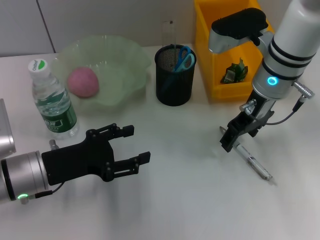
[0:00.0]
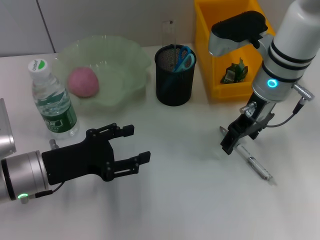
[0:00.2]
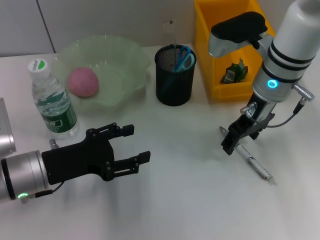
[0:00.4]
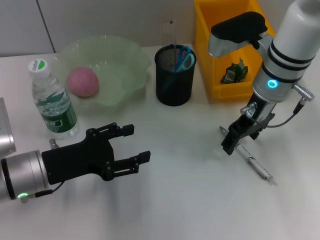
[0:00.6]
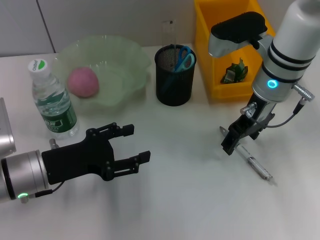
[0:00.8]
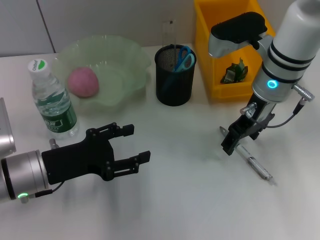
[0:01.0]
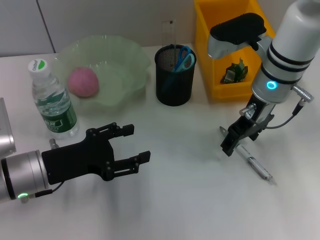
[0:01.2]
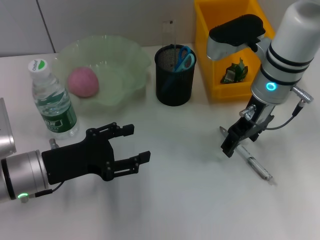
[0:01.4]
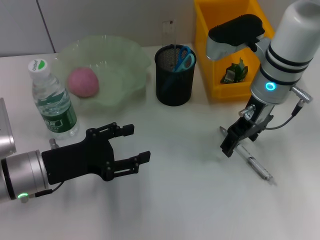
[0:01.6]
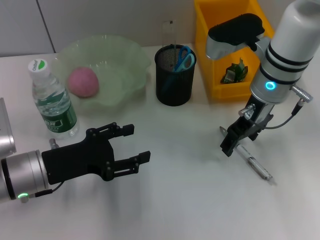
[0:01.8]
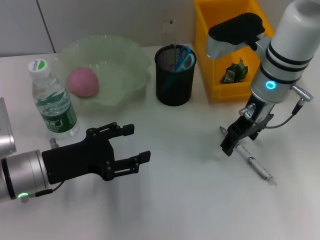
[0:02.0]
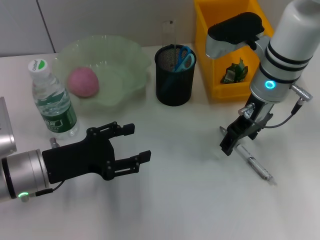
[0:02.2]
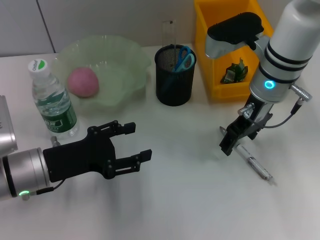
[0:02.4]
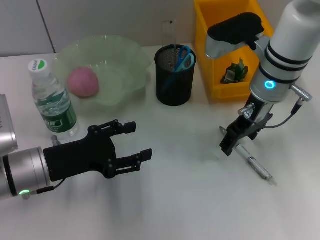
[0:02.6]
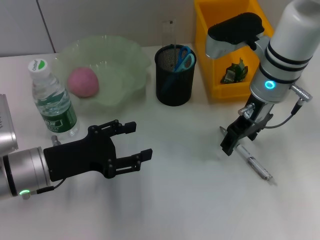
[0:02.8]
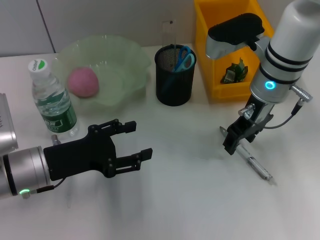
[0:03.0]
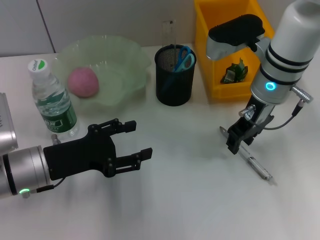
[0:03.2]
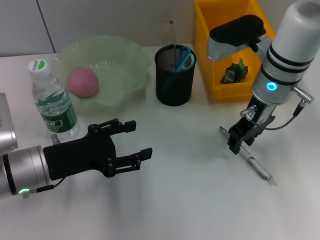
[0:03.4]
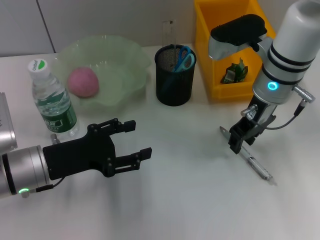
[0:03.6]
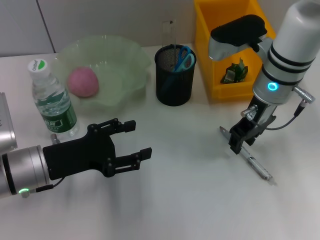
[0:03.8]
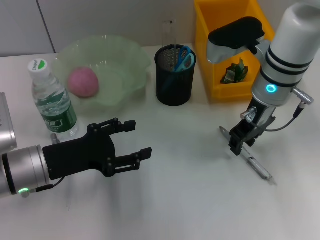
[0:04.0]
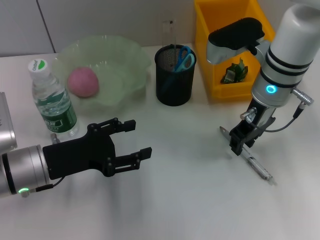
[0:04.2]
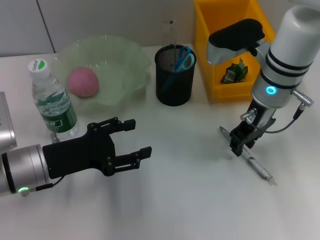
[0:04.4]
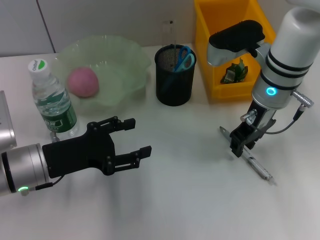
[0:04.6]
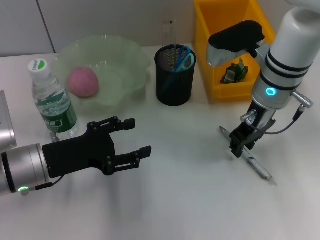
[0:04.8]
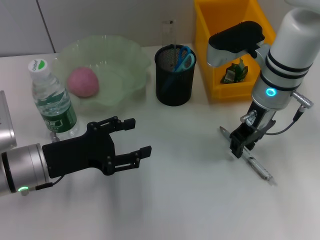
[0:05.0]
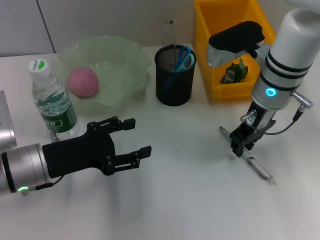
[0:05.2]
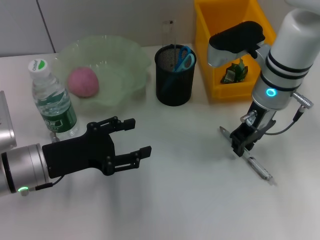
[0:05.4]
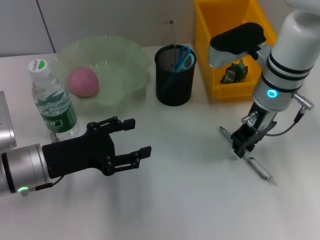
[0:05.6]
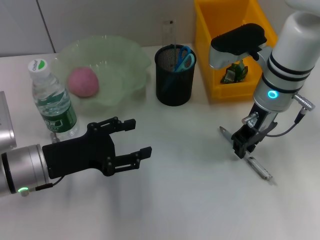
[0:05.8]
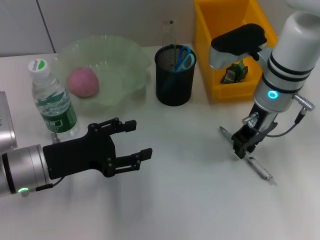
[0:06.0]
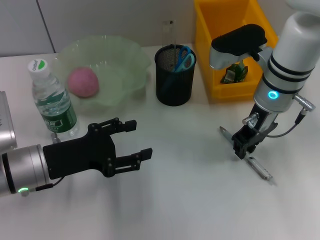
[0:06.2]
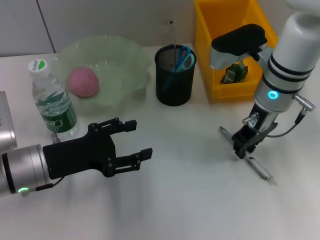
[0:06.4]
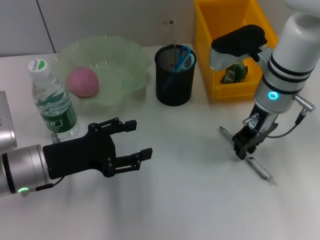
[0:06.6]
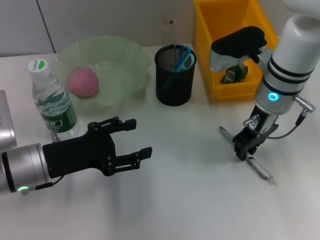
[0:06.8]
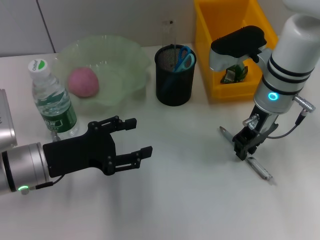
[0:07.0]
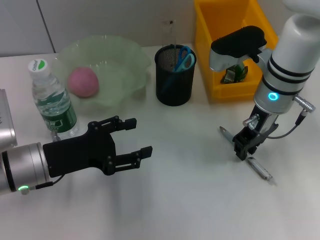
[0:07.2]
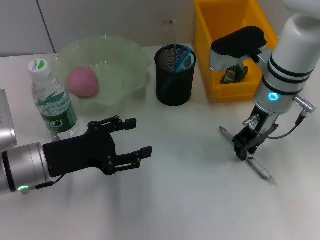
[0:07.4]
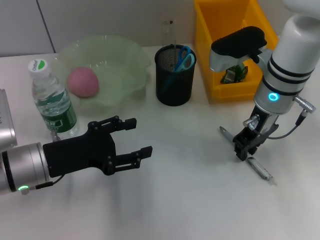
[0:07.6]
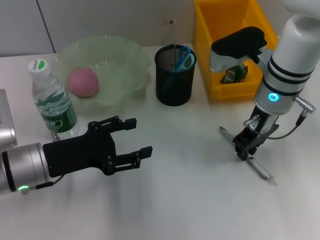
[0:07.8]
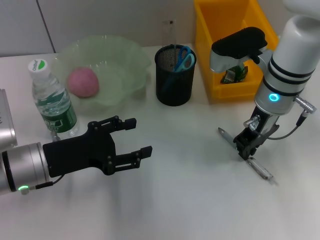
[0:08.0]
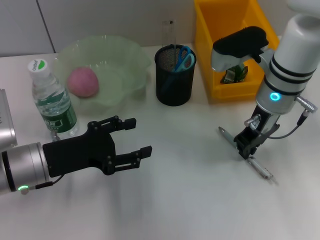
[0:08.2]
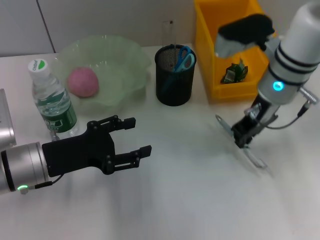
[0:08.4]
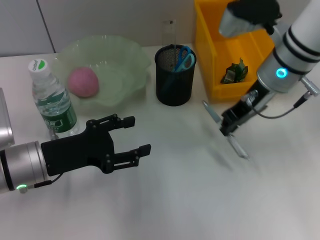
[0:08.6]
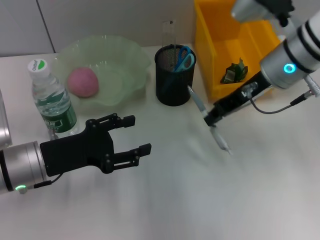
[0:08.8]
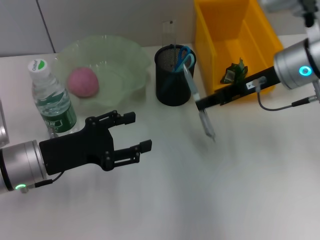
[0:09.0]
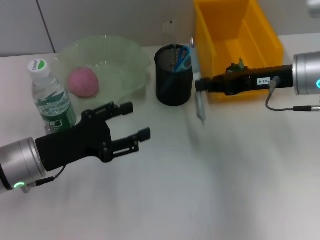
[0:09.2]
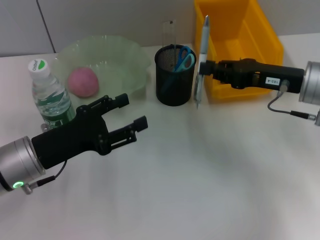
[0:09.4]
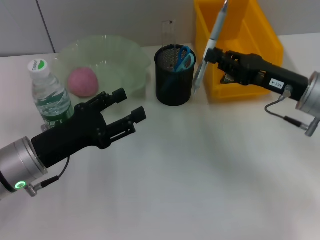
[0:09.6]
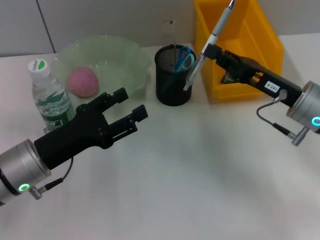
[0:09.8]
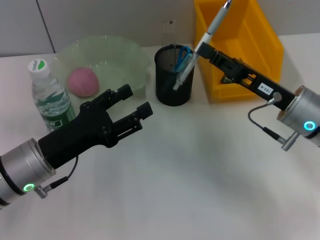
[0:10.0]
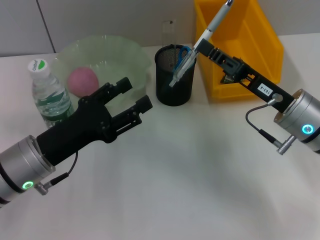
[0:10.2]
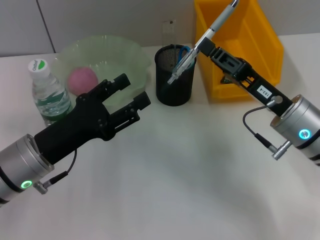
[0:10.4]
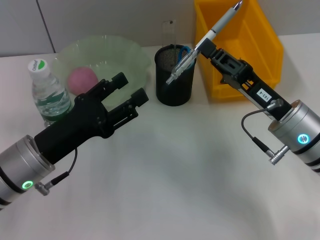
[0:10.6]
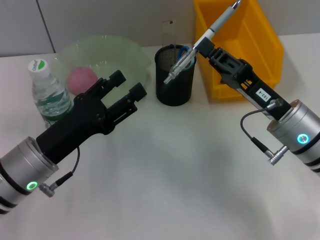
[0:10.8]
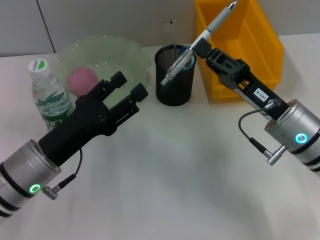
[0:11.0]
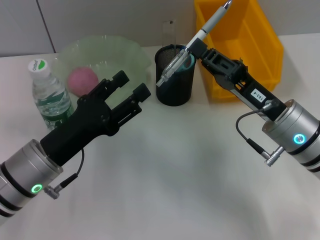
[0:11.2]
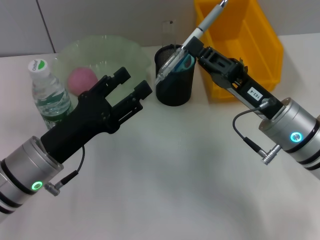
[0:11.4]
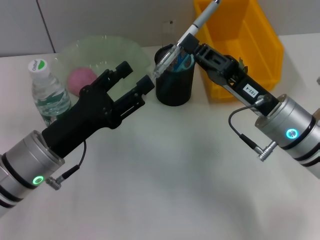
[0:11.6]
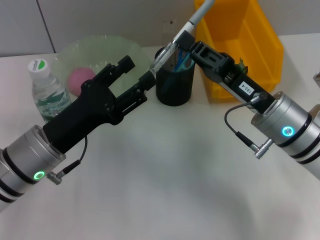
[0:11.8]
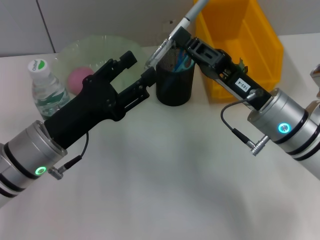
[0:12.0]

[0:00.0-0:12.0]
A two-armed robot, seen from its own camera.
Step, 0:00.0 to 0:07.8: Grab the gray spring-action pen with the right hand.
0:00.0 to 0:03.0: The two grippers keep their place.
0:03.0 to 0:04.4: The right gripper closes up.
0:04.4 to 0:07.6: The two grippers keep their place.
0:07.6 to 0:09.0: The right gripper changes place by roughly 5 cm.
0:09.0 to 0:10.4: The right gripper shifts some 10 cm downward and backward.
0:10.4 to 0:12.0: The grippers move only a little.

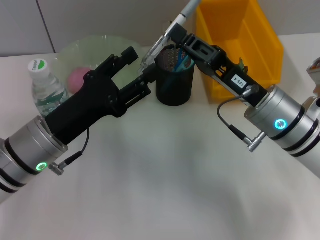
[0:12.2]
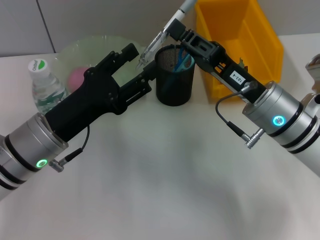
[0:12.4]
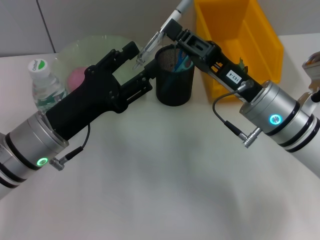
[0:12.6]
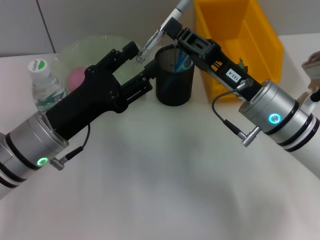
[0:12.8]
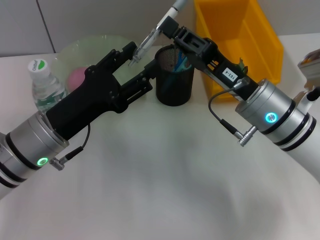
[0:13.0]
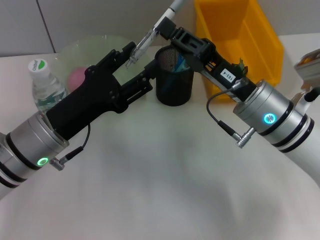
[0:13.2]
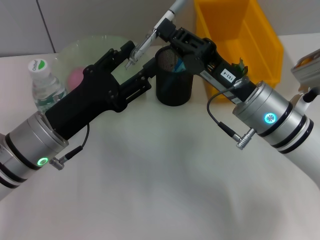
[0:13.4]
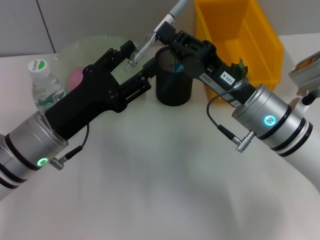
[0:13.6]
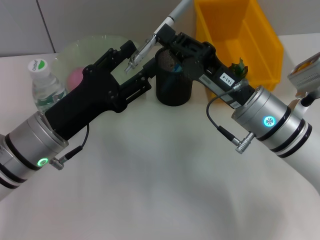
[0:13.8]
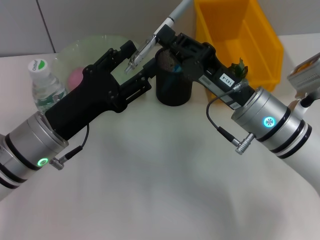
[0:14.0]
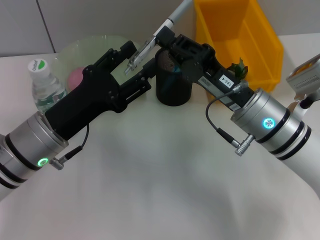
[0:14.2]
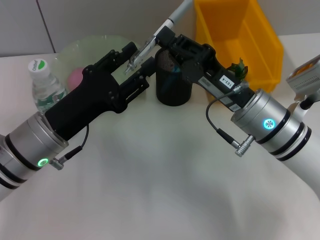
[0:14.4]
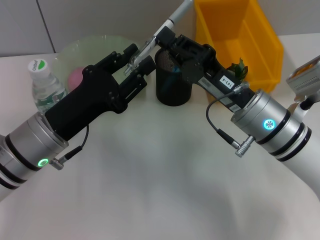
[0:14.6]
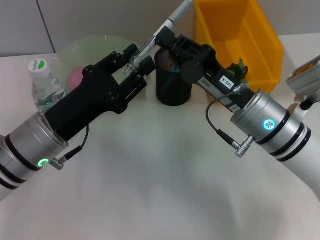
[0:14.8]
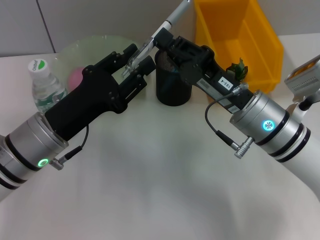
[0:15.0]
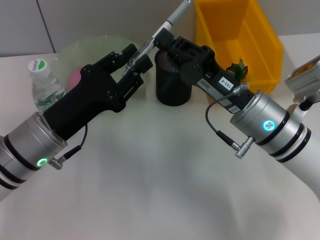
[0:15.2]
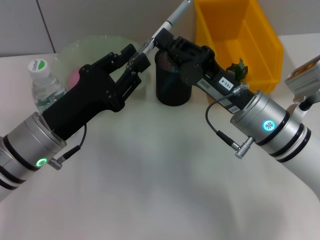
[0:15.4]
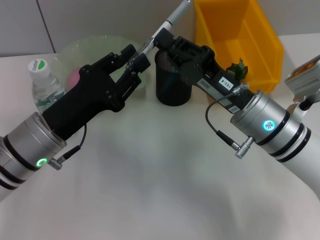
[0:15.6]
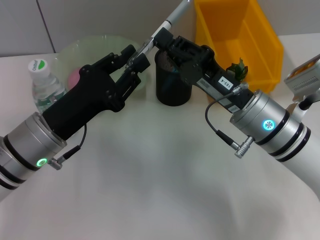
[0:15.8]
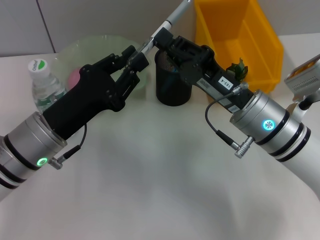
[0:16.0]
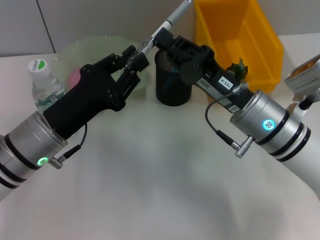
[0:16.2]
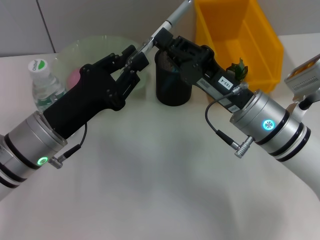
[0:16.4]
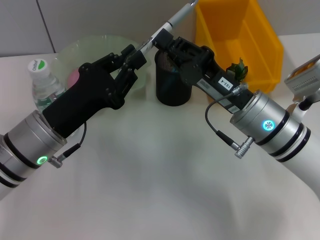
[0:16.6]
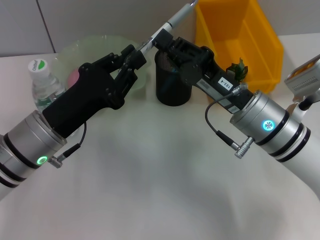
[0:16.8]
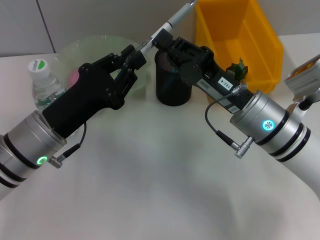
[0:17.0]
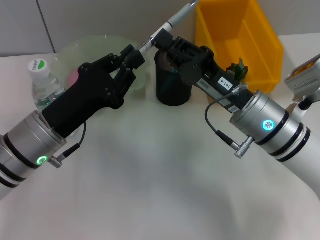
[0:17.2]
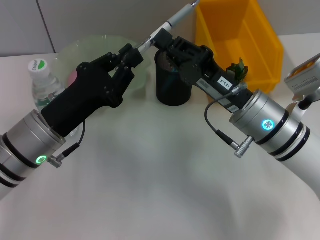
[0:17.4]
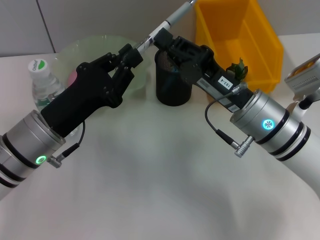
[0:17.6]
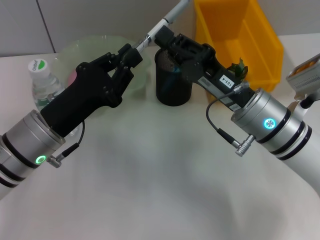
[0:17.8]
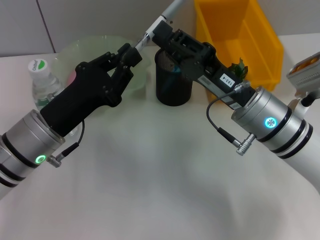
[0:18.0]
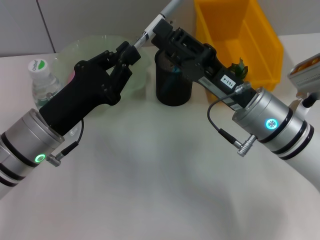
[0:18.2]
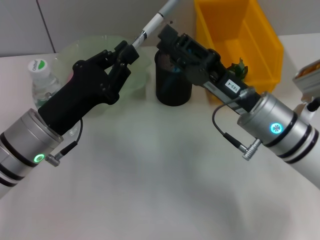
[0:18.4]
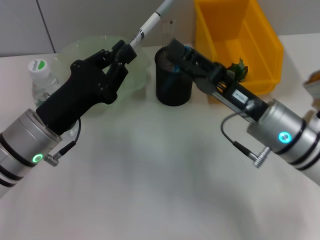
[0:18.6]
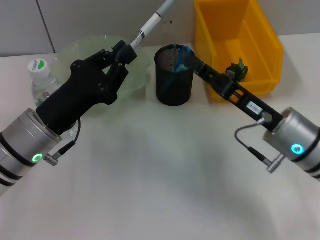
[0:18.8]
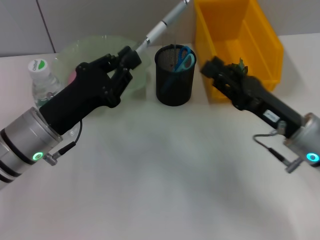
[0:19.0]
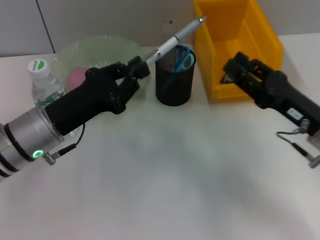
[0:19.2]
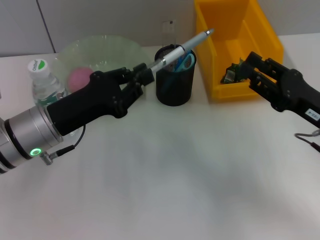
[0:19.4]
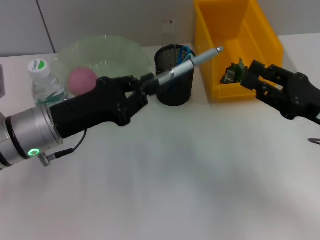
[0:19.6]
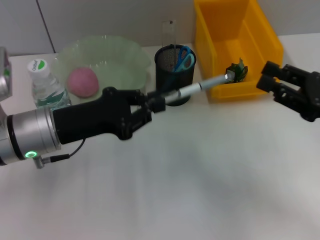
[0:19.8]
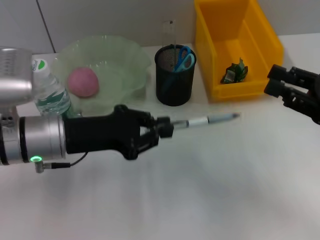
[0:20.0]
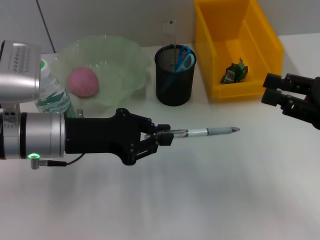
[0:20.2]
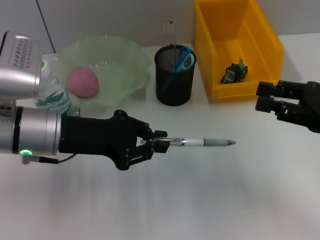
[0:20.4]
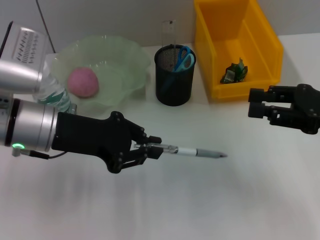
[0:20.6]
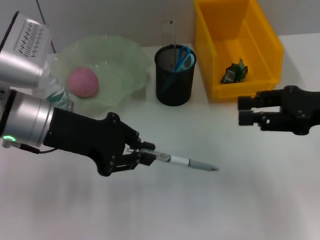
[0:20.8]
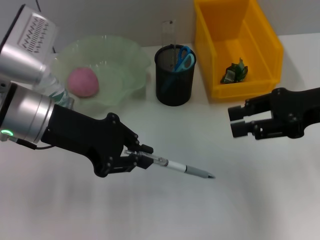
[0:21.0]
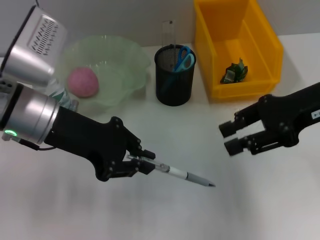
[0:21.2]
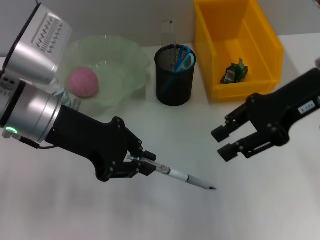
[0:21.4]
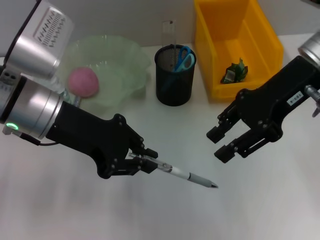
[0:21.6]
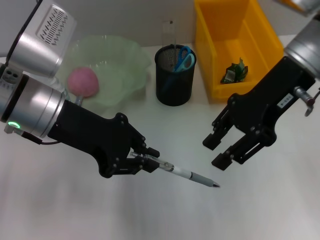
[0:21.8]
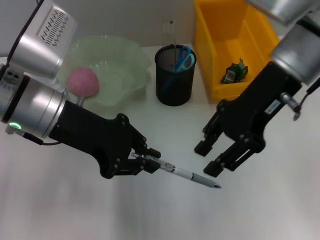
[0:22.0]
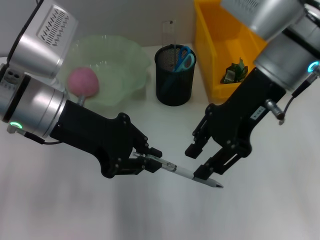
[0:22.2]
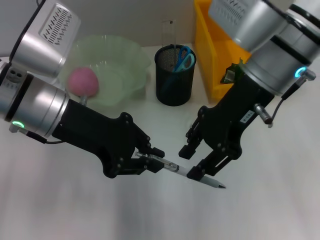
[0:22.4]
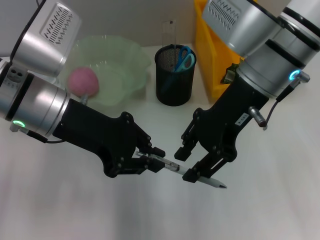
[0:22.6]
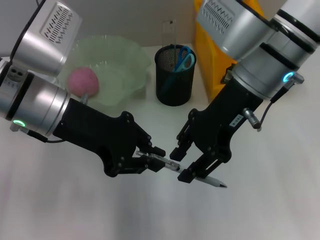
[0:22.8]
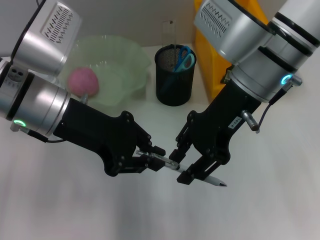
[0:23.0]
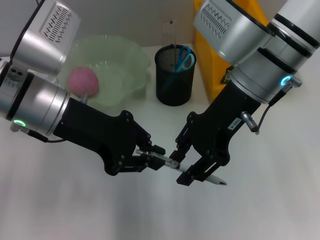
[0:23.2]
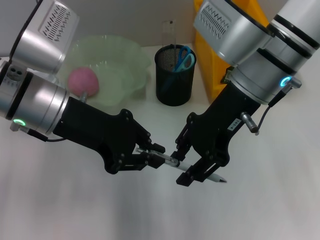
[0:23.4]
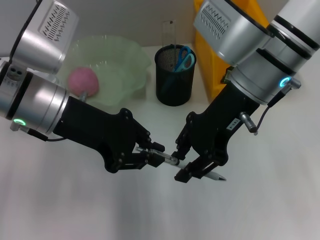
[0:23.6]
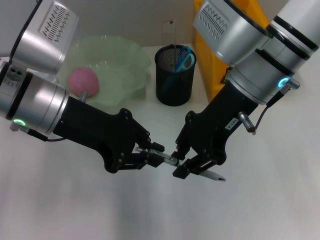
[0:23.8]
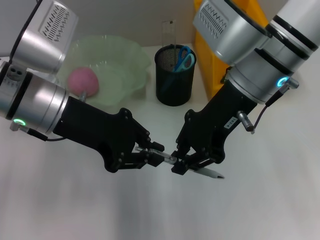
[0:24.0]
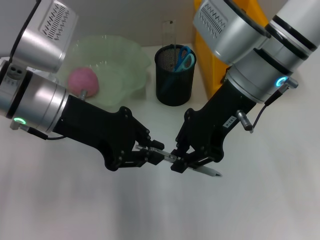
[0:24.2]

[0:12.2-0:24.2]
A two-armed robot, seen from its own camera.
Step, 0:12.2 to 0:18.2: Pass the gray spring-action pen from the right hand to the left hand.
0:12.2 to 0:13.8: The grippers make only small movements.
0:13.8 to 0:15.2: The left gripper closes up.
0:15.2 to 0:16.6: The left gripper closes.
0:16.6 to 0:18.2: Neither gripper changes place.
0:18.2 to 0:19.8: The right gripper heads to the right, covering roughly 15 cm.
0:19.8 to 0:21.2: The left gripper heads upward, covering roughly 5 cm, while the right gripper is displaced upward and forward by approximately 10 cm.
0:21.2 to 0:22.6: The right gripper travels to the left by approximately 15 cm.
0:22.6 to 0:24.2: The right gripper closes up.
